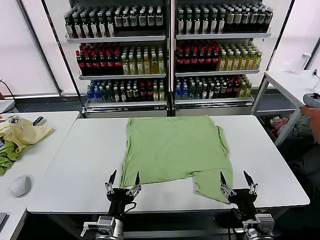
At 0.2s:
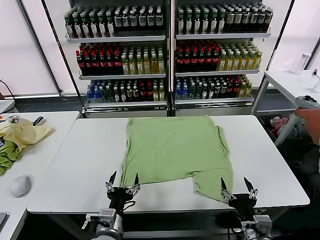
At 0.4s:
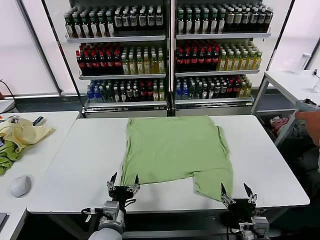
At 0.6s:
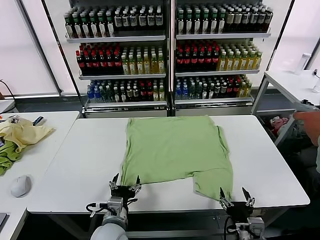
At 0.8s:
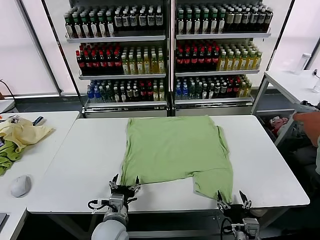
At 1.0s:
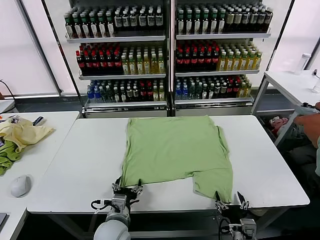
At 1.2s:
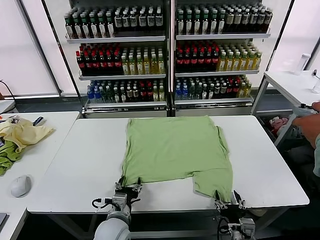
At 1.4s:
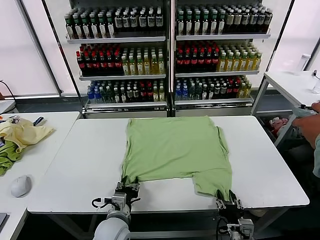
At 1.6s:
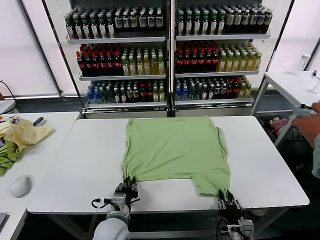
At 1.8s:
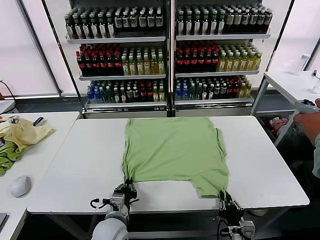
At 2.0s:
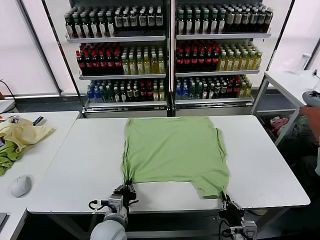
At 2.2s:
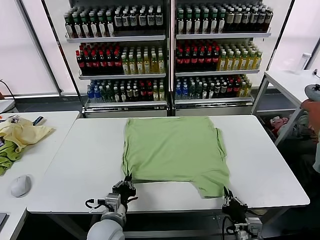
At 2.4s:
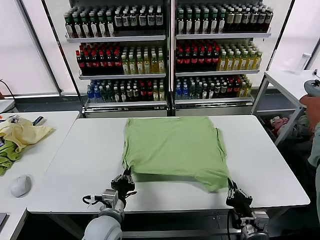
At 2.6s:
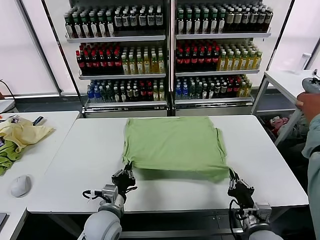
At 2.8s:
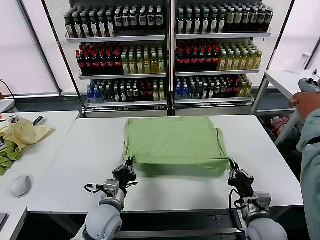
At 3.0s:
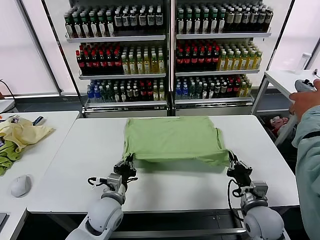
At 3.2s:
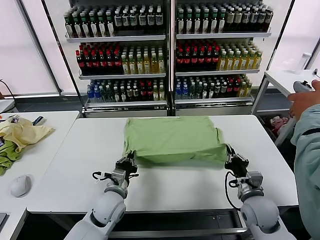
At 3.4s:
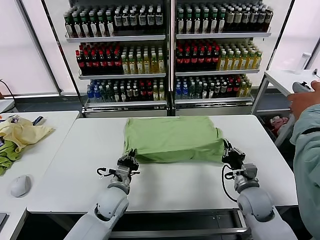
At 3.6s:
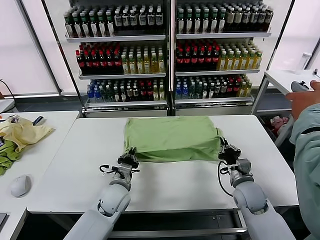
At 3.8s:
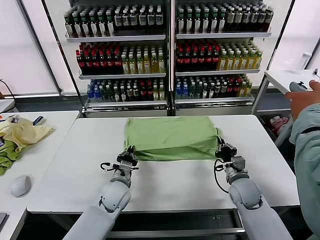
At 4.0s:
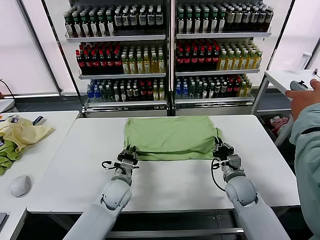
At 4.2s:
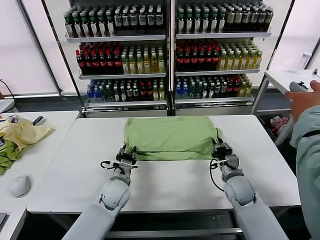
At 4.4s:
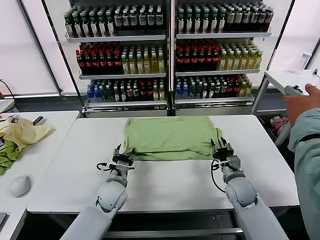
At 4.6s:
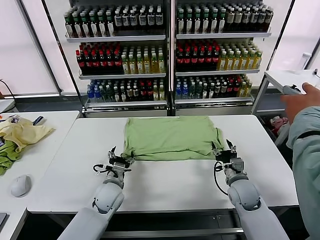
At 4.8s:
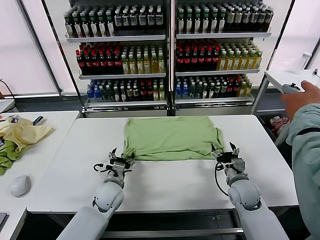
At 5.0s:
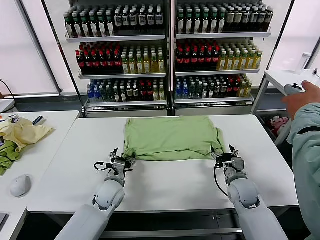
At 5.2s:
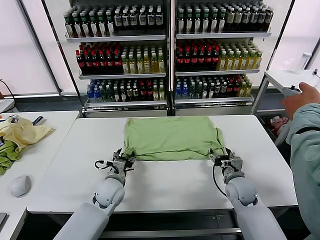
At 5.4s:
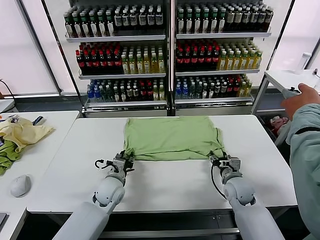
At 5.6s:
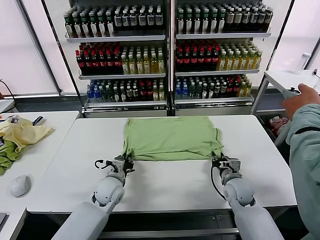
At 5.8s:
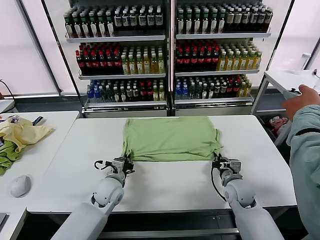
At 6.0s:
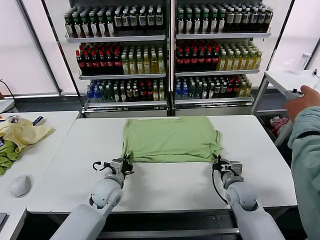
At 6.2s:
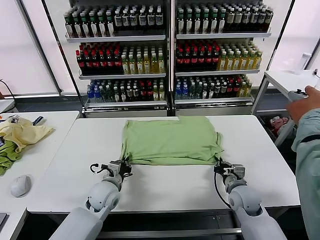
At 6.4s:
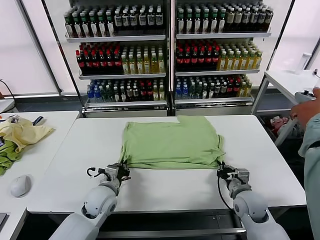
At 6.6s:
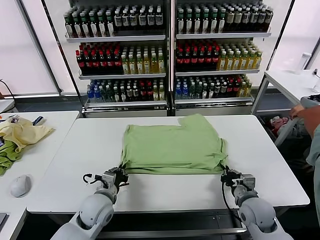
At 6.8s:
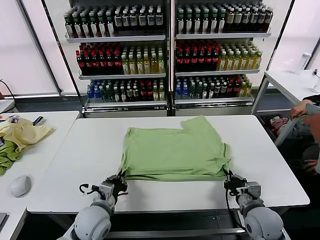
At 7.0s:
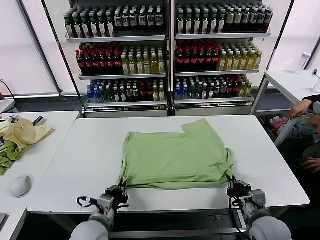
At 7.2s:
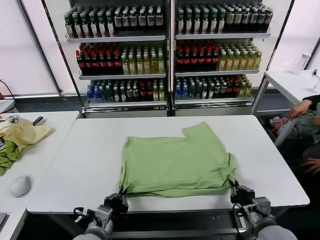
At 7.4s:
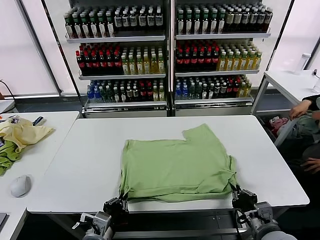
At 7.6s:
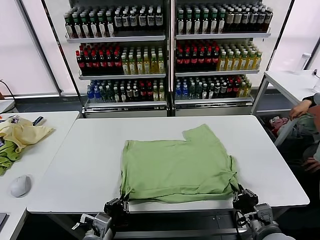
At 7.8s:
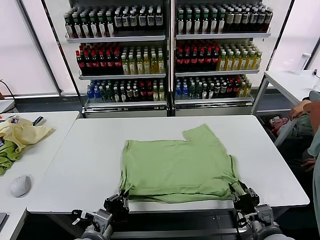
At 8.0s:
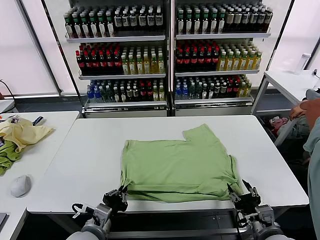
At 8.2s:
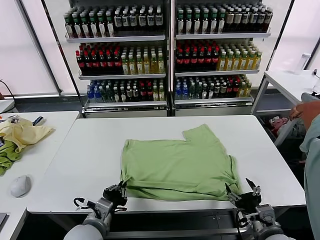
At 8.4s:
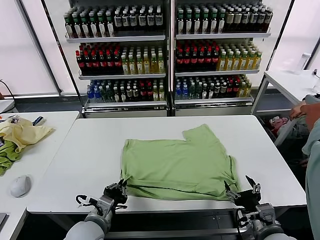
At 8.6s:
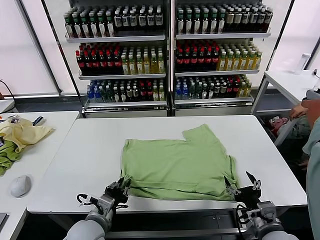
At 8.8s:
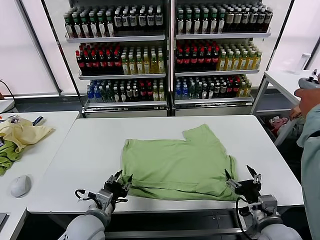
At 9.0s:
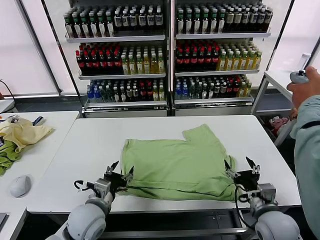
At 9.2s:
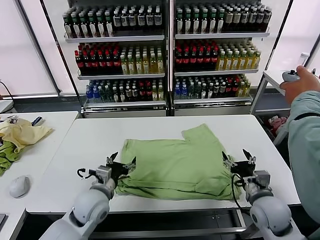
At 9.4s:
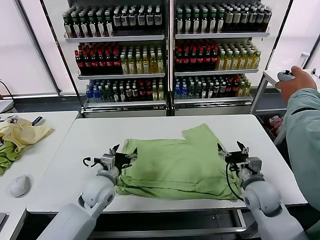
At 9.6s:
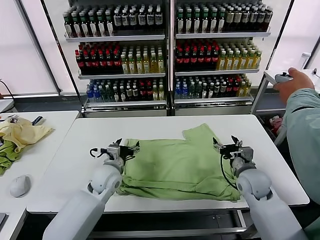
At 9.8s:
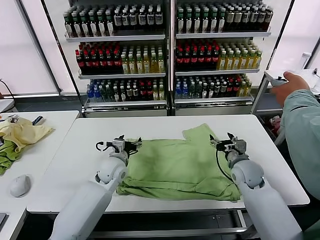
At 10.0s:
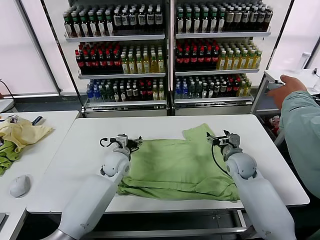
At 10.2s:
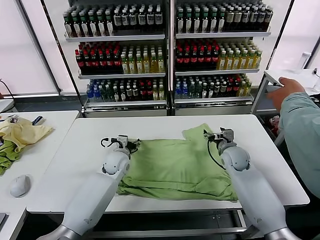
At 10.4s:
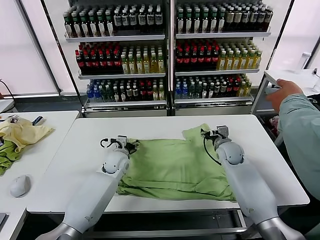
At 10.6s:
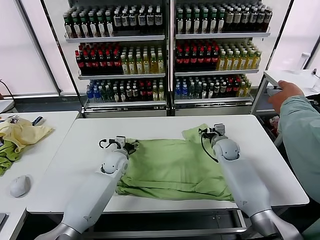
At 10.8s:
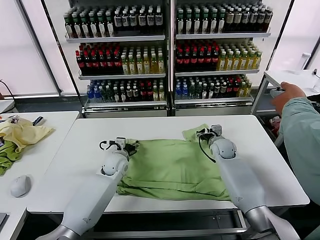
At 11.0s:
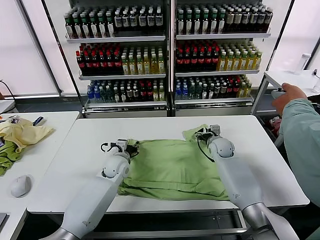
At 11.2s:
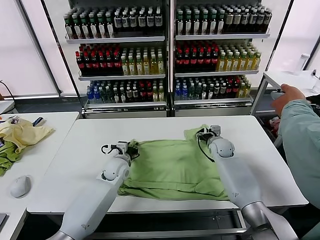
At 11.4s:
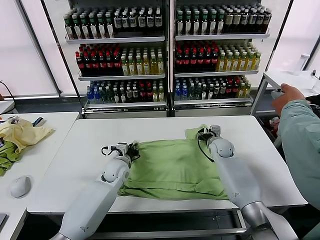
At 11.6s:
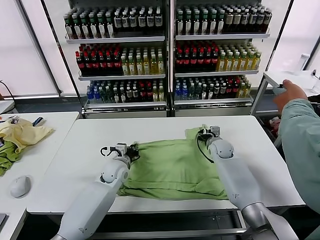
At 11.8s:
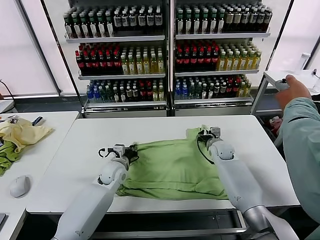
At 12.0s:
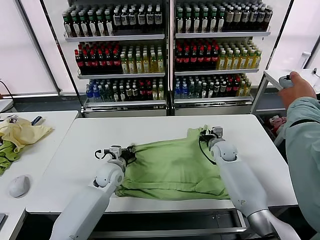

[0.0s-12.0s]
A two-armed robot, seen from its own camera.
Task of the whole recording: fold and organize the clothes.
Step, 0.0s to 2.0s: use both grippers simultaneously to clamp the lower edge of the clothing fabric.
Step, 2.2s to 4.2s: use both grippers to drag the lower edge of the fabric forward and fold it over the upper edge.
Step, 4.6s to 8.8s: Drag the clothes downward with both gripper.
Step, 9.0s to 11.8s: use both grippers simultaneously to clamp the upper edge of the clothing fabric.
1.6s to 3.0s: The right gripper travels forward and upward by about 15 cm, while the left gripper goes roughly 5 cm forward.
3.0s to 4.4s: The grippers both shift forward by about 5 cm. The left gripper opens its fingers, while the right gripper opens up.
4.4s to 6.0s: The right gripper closes up; the left gripper closes up.
6.0s to 7.6s: Both grippers move backward, approximately 20 cm.
7.6s to 9.0s: The two grippers go approximately 10 cm forward. The left gripper opens its fingers. The right gripper opens its fingers.
9.0s to 10.4s: Both grippers travel together forward, about 25 cm.
10.4s to 12.0s: The left gripper travels backward by some 5 cm, and closes up. Meanwhile the right gripper closes.

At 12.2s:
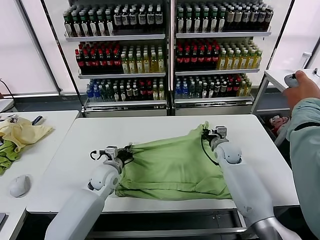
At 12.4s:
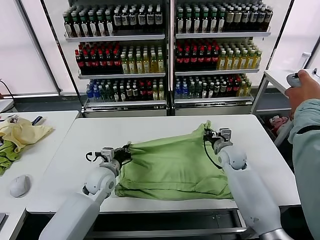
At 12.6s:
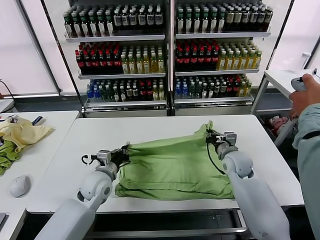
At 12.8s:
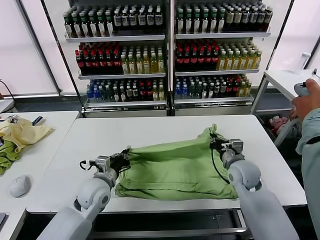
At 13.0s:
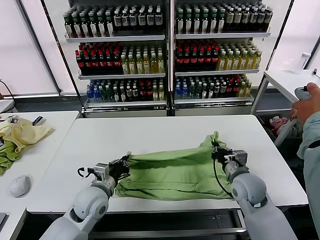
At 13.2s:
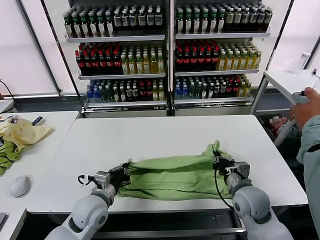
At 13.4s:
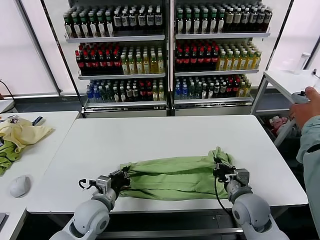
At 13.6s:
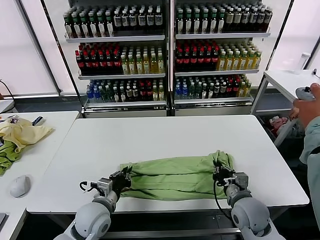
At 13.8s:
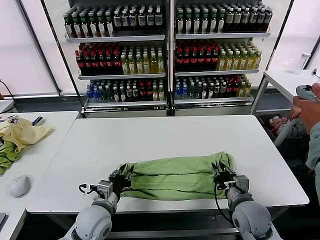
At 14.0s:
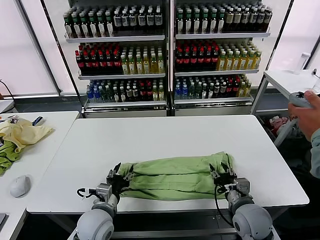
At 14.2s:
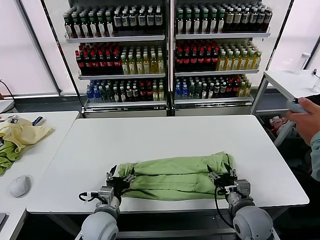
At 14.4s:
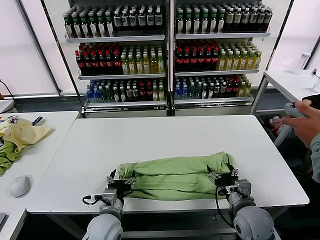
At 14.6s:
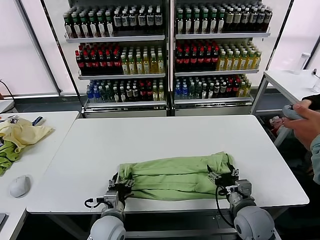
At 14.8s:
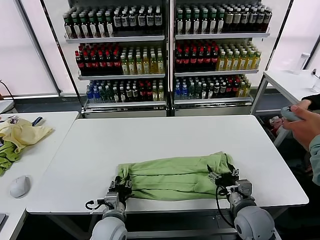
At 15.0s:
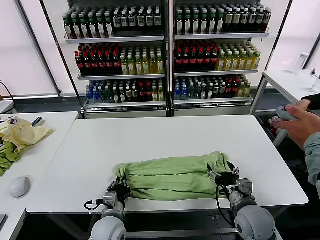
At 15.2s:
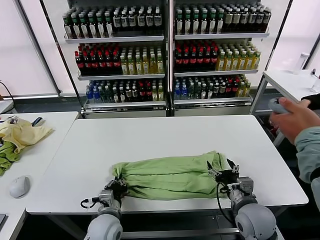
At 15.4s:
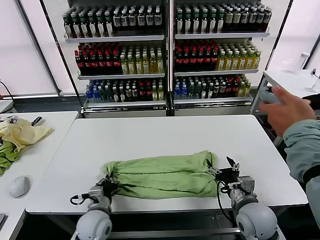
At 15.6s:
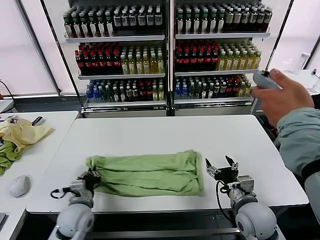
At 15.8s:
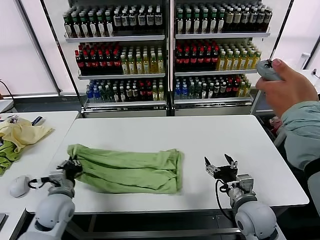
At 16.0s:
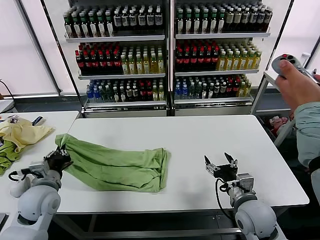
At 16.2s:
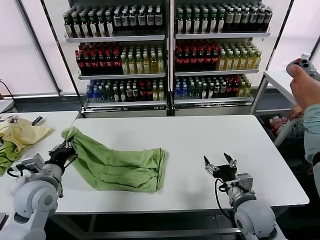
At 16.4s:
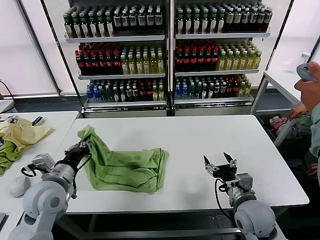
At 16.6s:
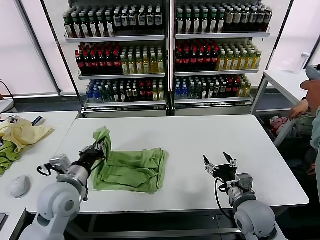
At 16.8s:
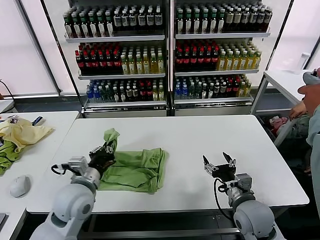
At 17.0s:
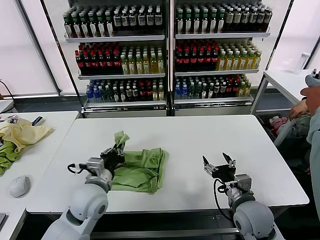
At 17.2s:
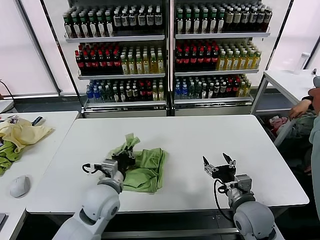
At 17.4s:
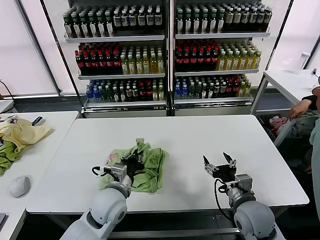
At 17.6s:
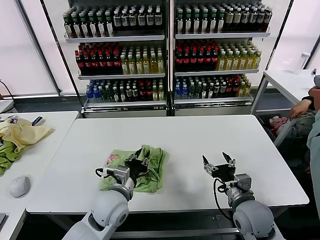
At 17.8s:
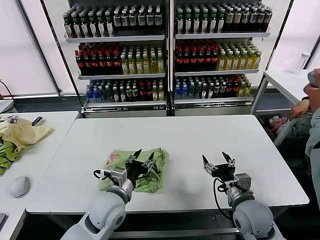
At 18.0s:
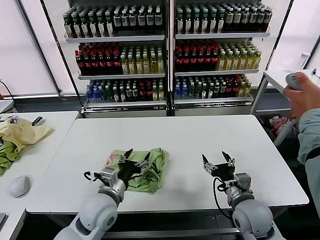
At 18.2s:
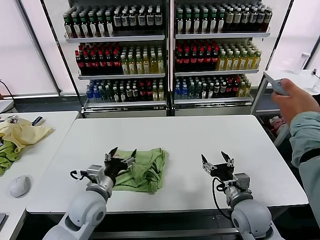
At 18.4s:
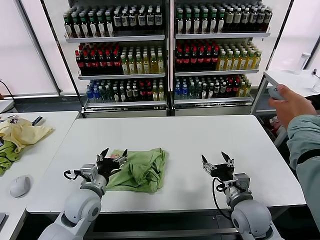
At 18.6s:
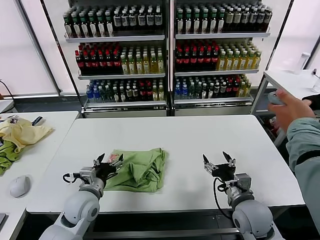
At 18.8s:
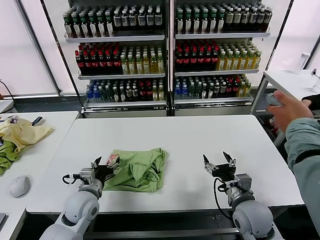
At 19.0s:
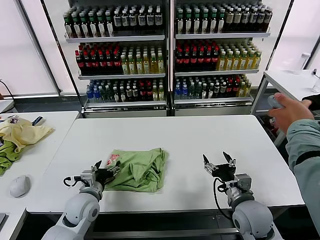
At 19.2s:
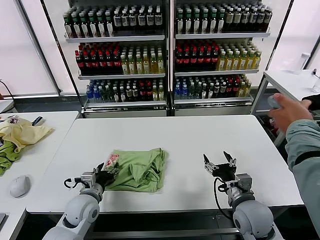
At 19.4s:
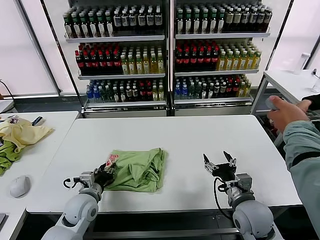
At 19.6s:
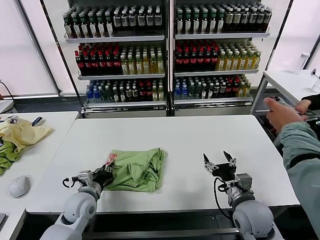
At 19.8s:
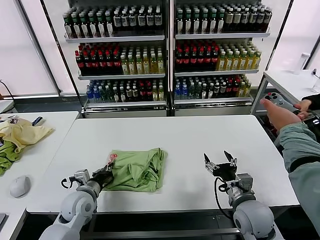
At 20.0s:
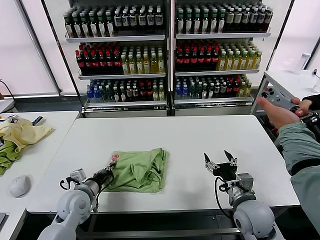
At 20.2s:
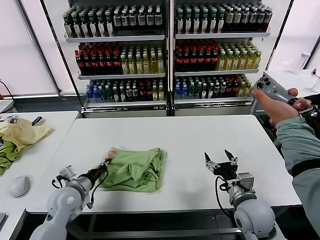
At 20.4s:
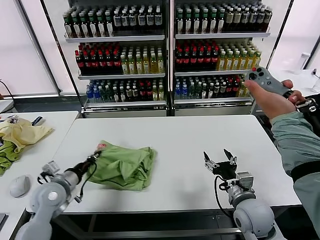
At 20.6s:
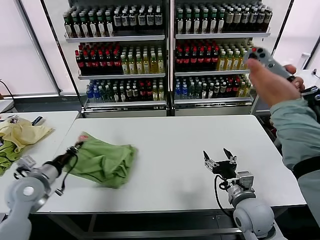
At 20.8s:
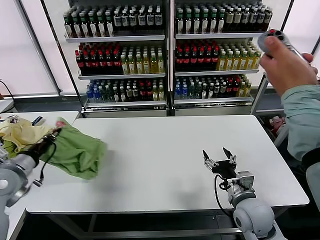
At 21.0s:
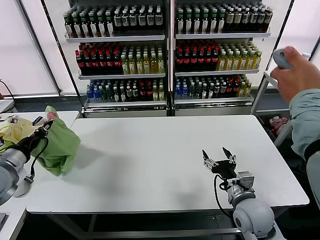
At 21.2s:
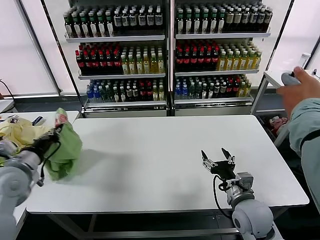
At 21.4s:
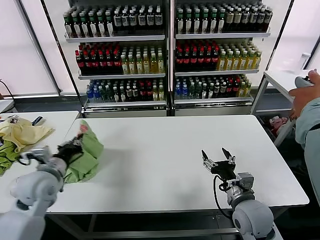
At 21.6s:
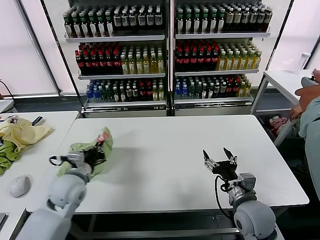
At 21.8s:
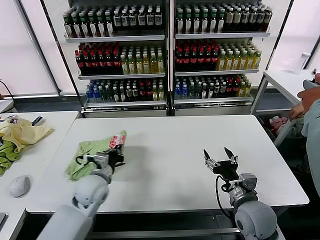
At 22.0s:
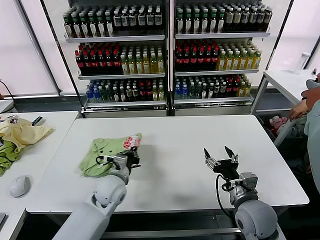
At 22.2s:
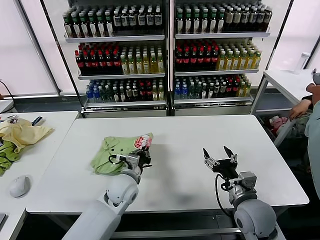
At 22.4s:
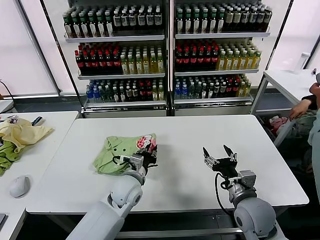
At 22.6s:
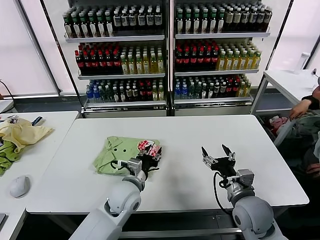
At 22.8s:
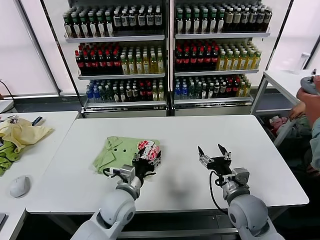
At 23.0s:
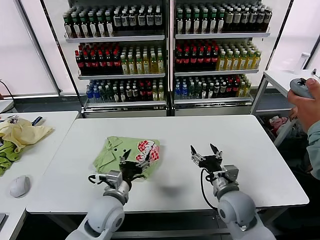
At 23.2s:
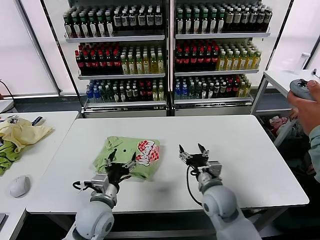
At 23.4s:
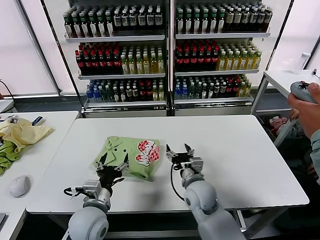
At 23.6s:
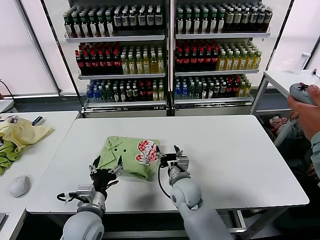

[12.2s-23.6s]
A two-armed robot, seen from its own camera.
Task of the whole recording: fold and organize the clothes.
Step, 12.2s to 14.0s: use both grippers to drag the upper edge of the fabric backward and fold it over the lower edge.
Step, 14.2s to 15.0s: use the left gripper to clamp the left edge of the fabric.
Step, 15.4s to 17.6s: use the left gripper to drag the left edge of the fabric to the left and folds it over the right edge.
Step, 18.0s to 22.4s: Flip the folded clothes over with left gripper.
12.2s to 13.6s: The right gripper goes roughly 20 cm backward; the left gripper moves backward, some 15 cm.
13.6s to 15.0s: The left gripper moves downward, about 5 cm, and opens, then closes once more. Meanwhile the right gripper opens up.
15.0s to 16.4s: The left gripper is displaced upward and to the left by approximately 20 cm.
16.4s to 17.8s: The left gripper moves to the right and downward, some 15 cm, and opens its fingers.
17.8s to 19.4s: The left gripper shifts about 15 cm to the left and downward, and opens, then closes again.
19.4s to 20.8s: The left gripper is displaced to the left and upward by approximately 25 cm, and closes its fingers.
20.8s to 22.2s: The left gripper goes some 30 cm to the right.
22.2s to 23.6s: The left gripper moves backward and to the left, about 15 cm, and opens up. Meanwhile the right gripper travels to the left and forward by roughly 20 cm.
